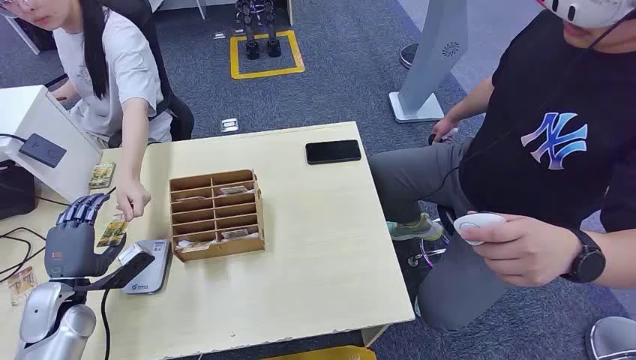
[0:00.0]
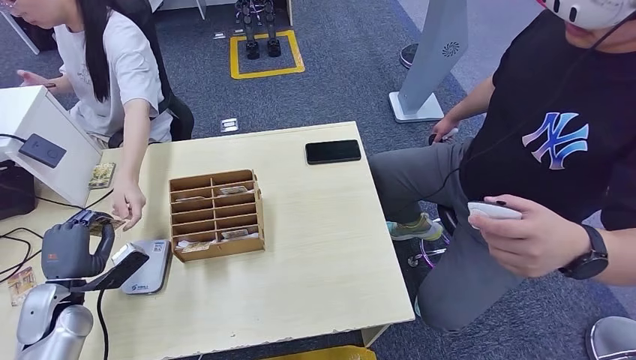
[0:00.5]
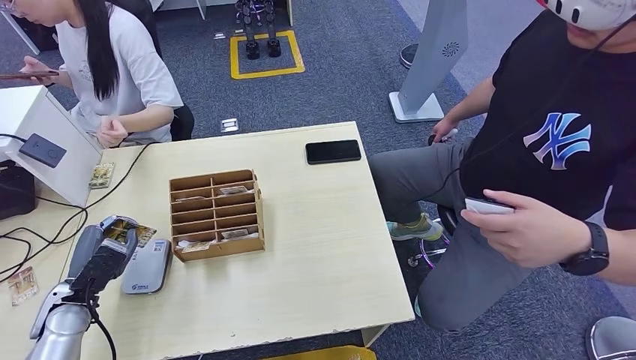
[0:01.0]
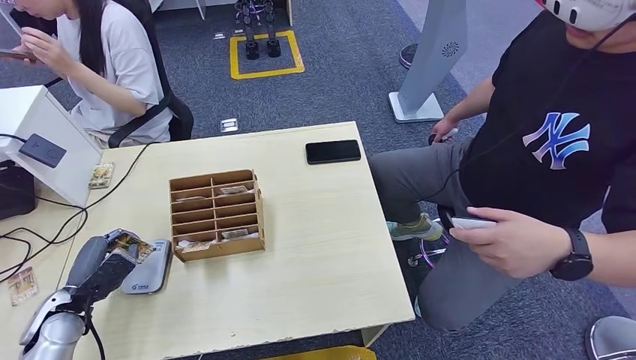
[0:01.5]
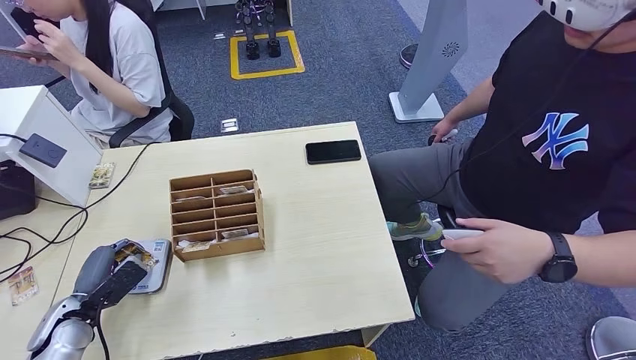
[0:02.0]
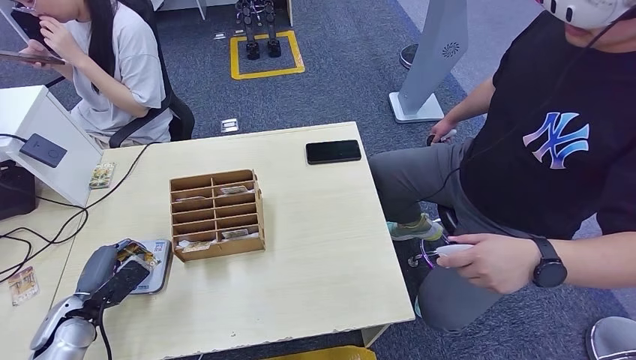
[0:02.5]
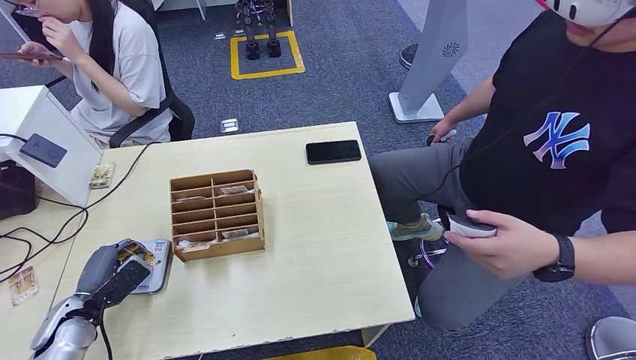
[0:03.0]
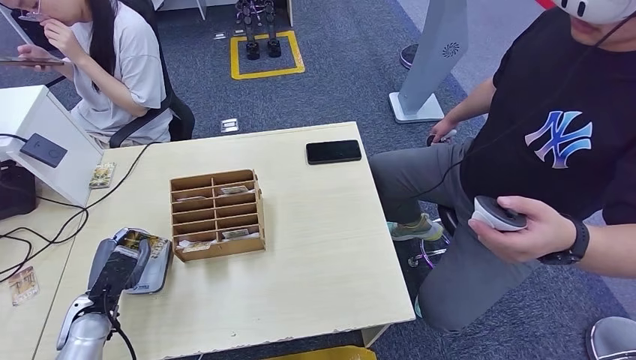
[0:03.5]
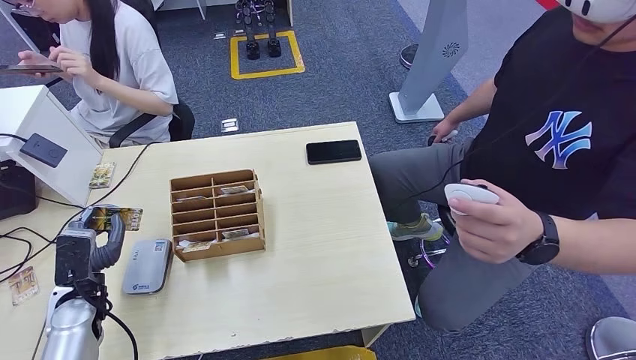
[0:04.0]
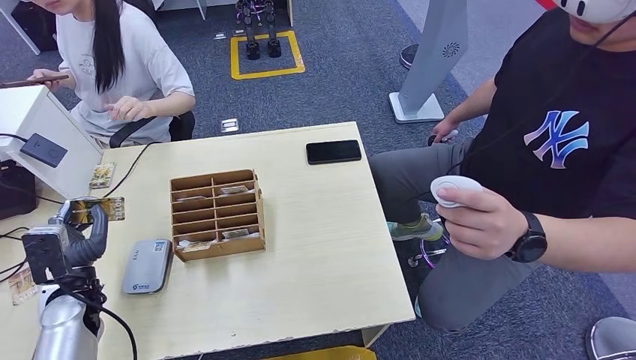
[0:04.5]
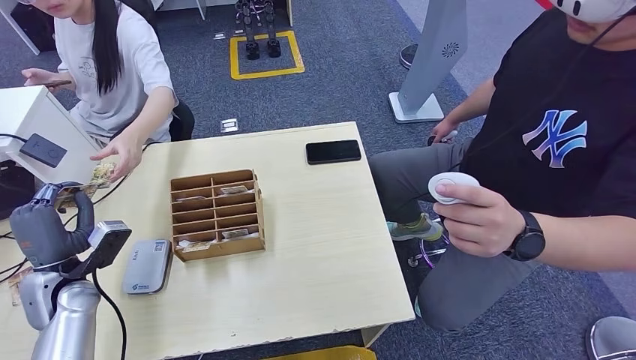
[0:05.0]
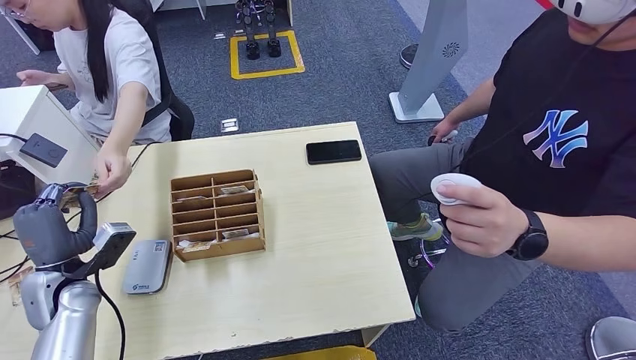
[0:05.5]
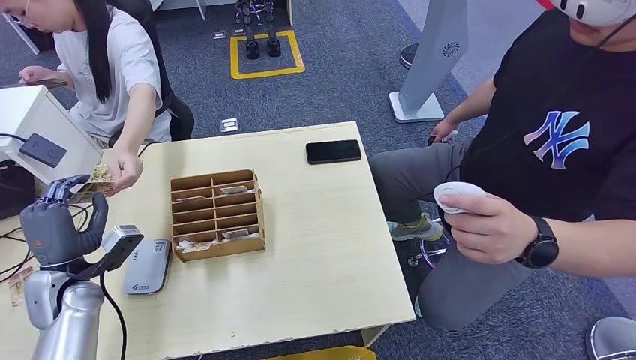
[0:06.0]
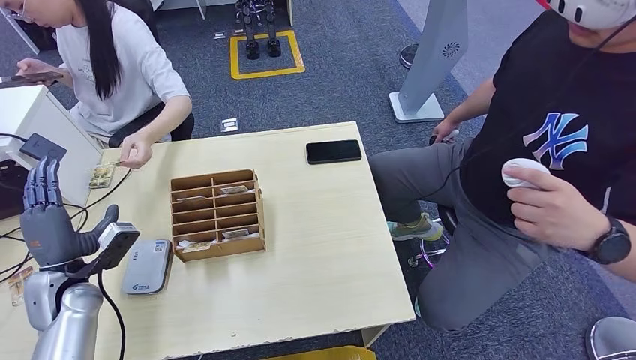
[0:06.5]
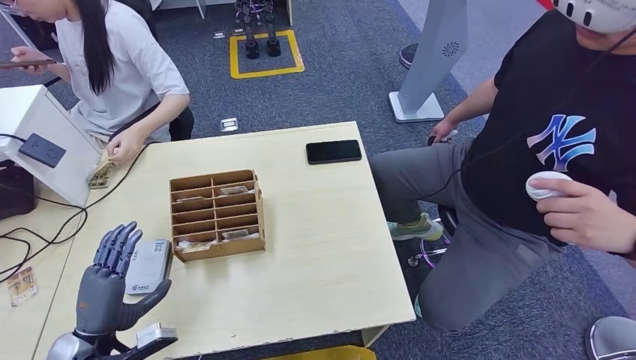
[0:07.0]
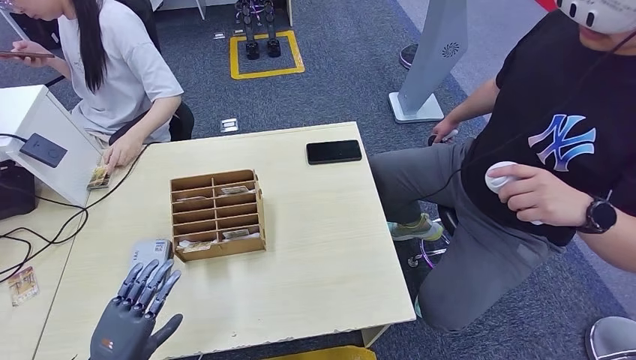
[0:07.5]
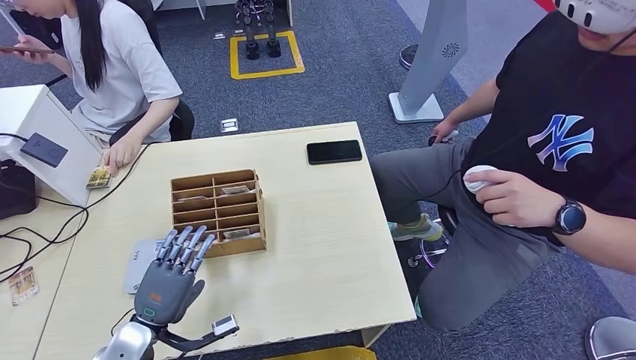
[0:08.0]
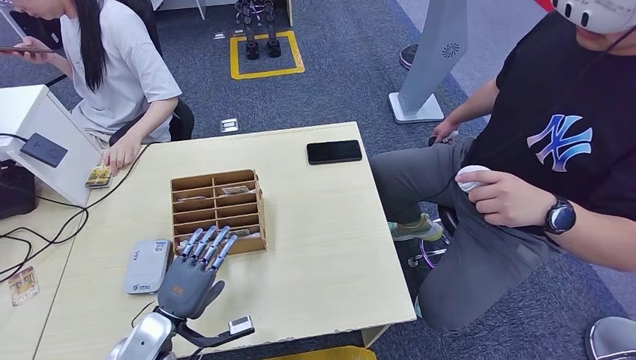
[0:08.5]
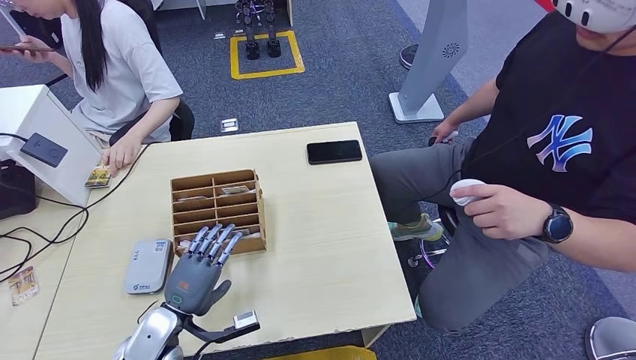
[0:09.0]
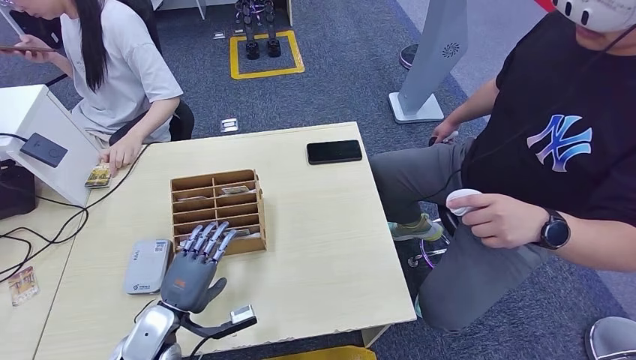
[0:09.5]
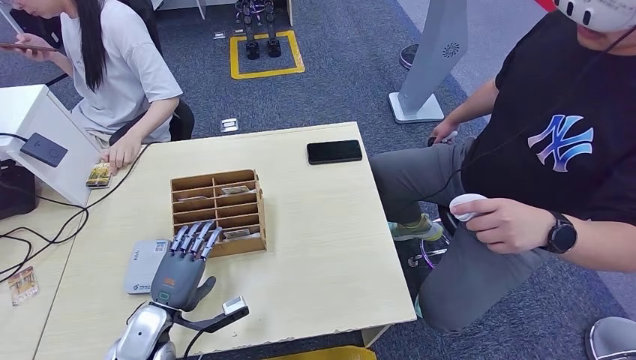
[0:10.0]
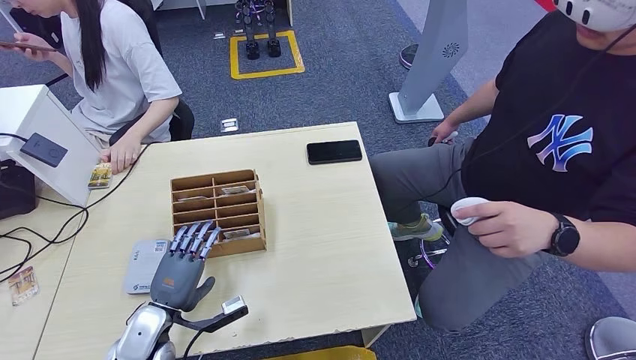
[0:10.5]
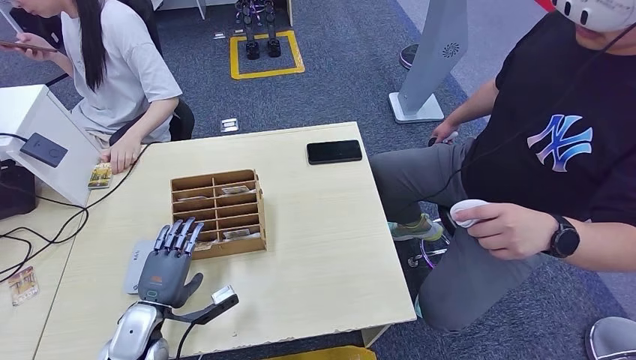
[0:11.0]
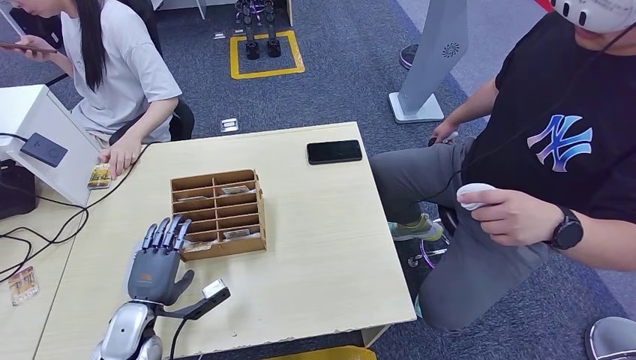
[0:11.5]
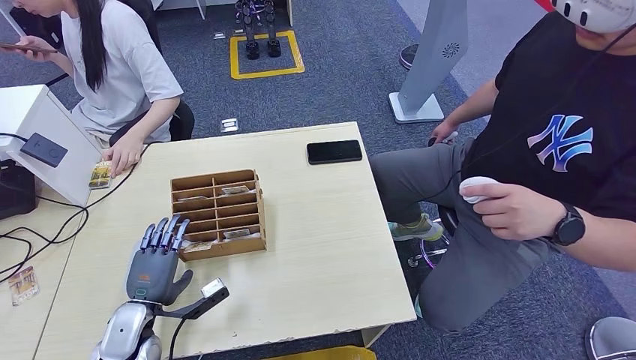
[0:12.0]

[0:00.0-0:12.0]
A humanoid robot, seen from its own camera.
Step, 0:00.0 to 0:01.0: Take the ID card from the person's hand.
Step, 0:01.5 to 0:03.5: Place the ID card on the card reader.
Step, 0:04.0 to 0:06.0: Hand the ID card to the person.
0:02.0 to 0:04.0: The left hand moves roughly 5 cm.
0:08.0 to 0:12.0: The hands make only small movements.

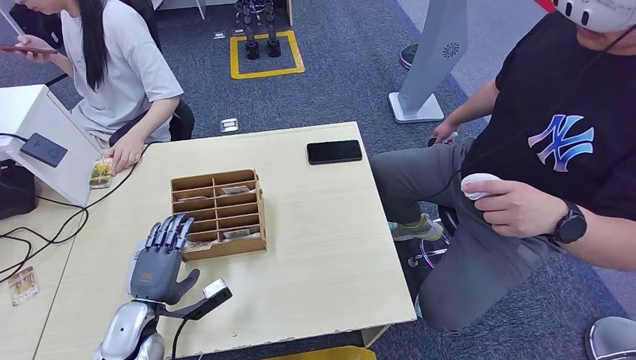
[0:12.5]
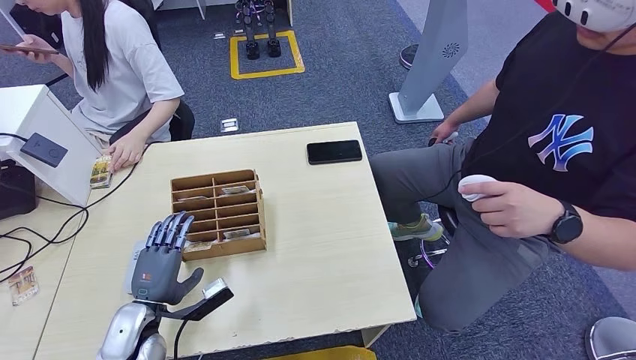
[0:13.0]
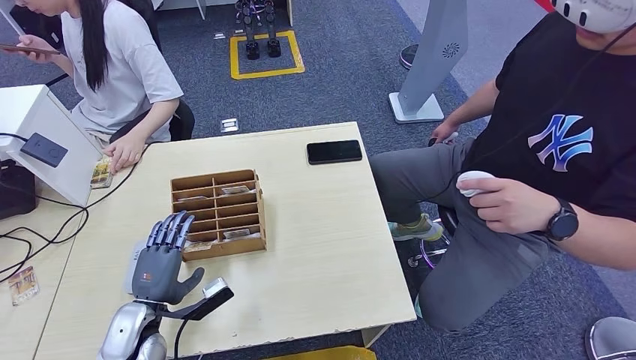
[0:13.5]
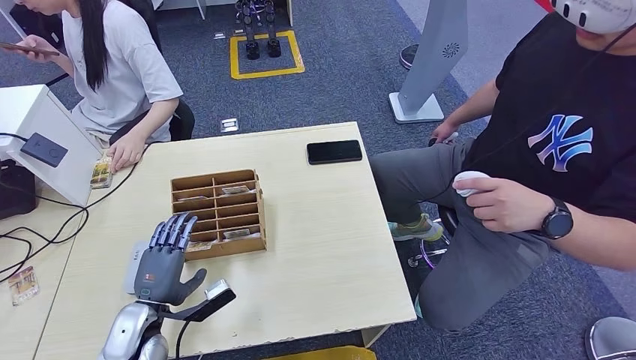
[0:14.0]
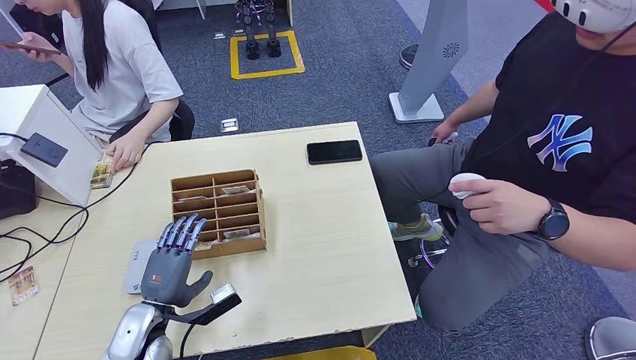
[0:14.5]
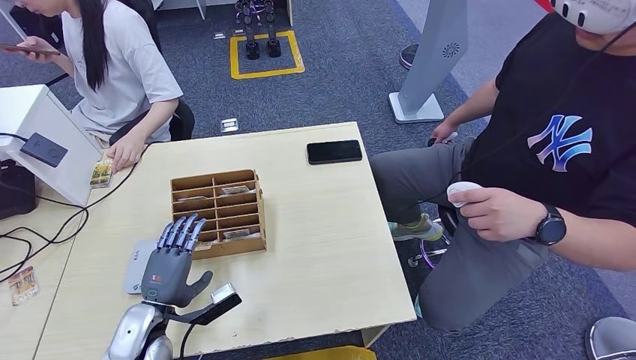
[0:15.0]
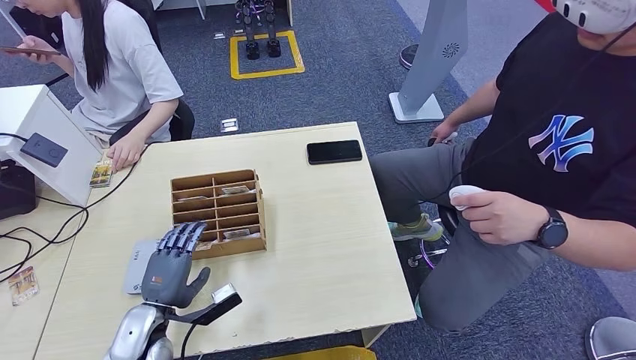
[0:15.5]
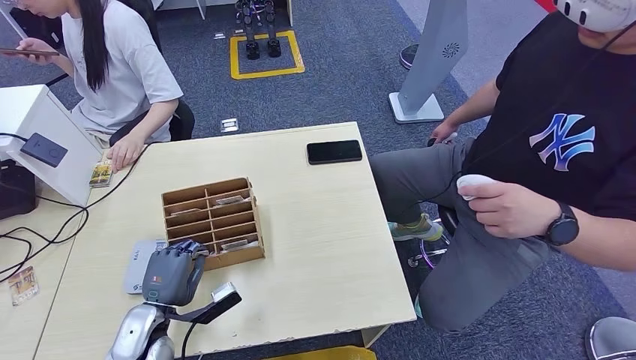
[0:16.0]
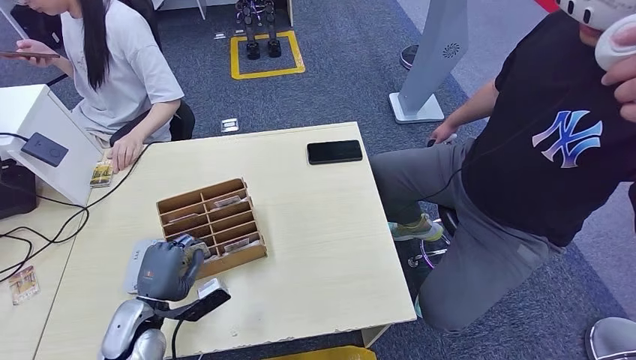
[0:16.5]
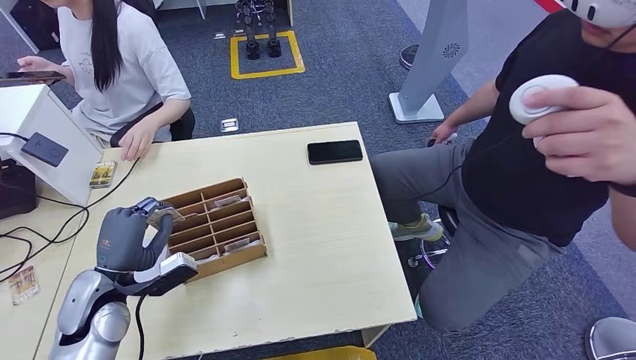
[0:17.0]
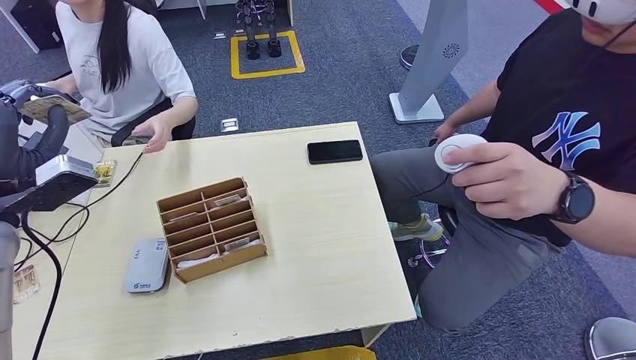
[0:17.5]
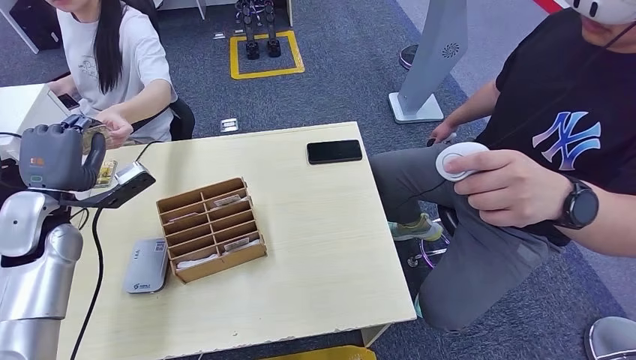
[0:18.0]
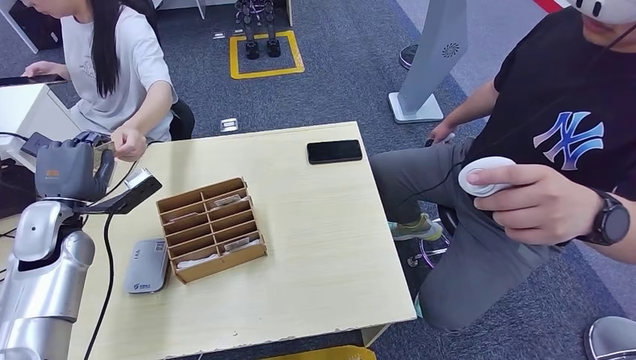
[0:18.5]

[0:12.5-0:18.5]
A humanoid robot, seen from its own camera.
Step, 0:12.5 to 0:16.5: Pick up the room key from the key card box.
Step, 0:17.0 to 0:18.5: Hand the room key to the person.
0:12.5 to 0:14.5: The hands stay close to where they were, moving slightly.
0:14.5 to 0:16.5: There are only small adjustments of the hands.
